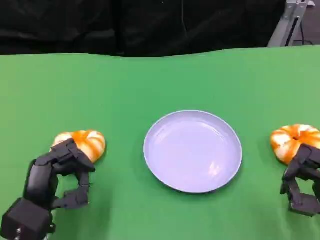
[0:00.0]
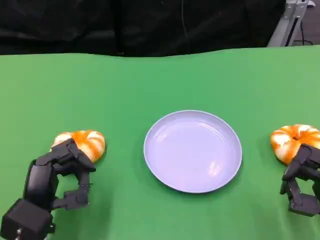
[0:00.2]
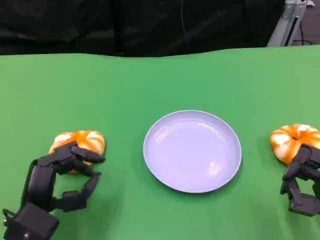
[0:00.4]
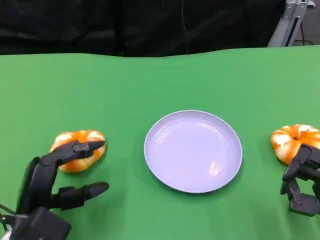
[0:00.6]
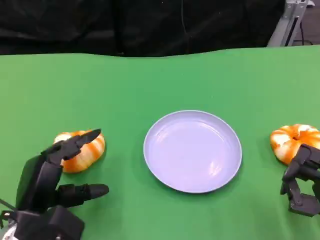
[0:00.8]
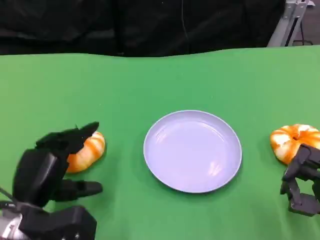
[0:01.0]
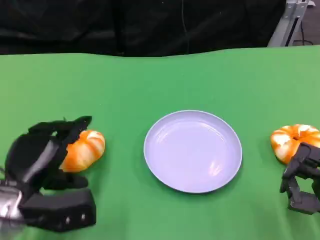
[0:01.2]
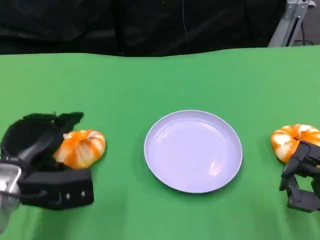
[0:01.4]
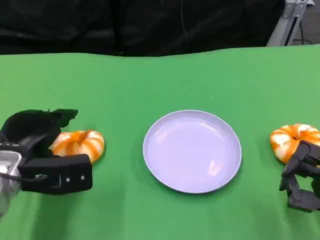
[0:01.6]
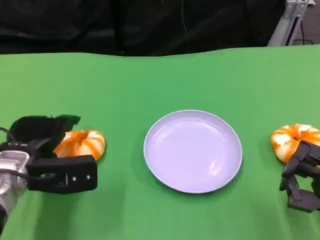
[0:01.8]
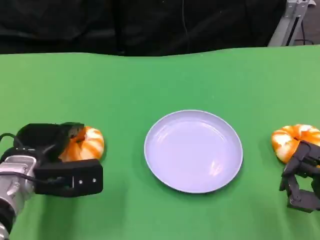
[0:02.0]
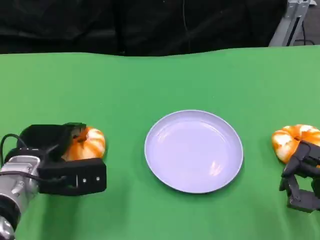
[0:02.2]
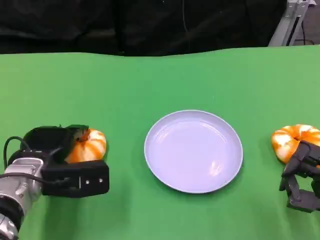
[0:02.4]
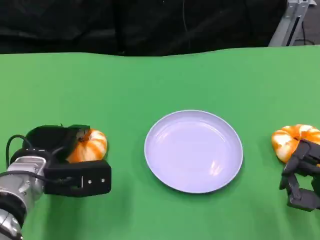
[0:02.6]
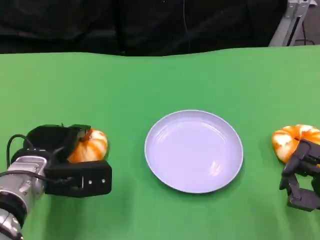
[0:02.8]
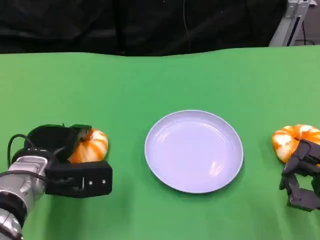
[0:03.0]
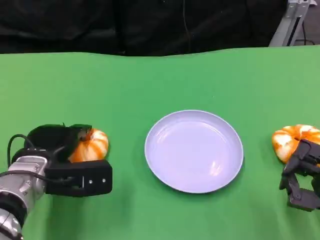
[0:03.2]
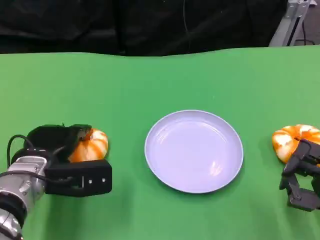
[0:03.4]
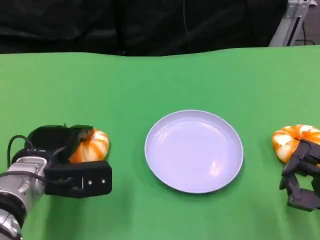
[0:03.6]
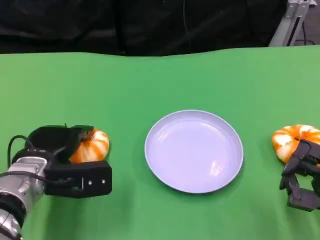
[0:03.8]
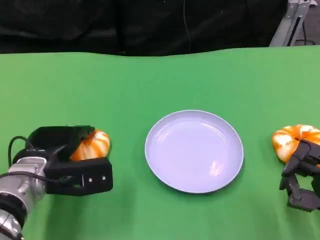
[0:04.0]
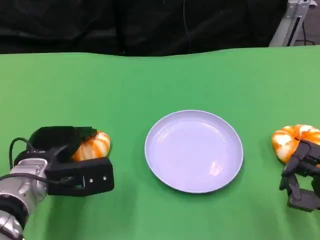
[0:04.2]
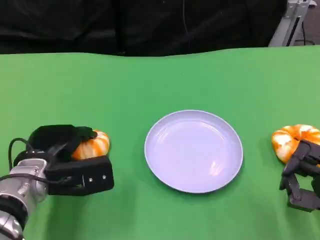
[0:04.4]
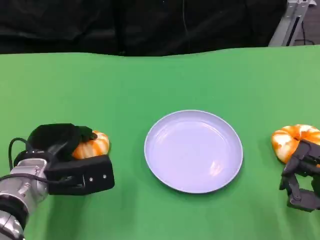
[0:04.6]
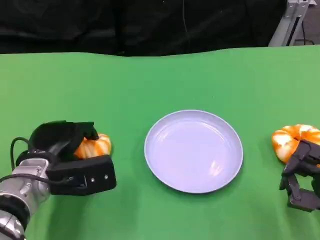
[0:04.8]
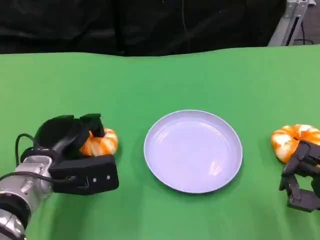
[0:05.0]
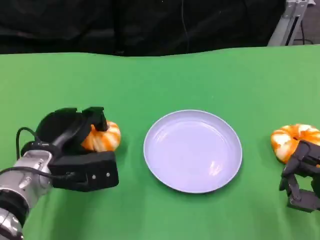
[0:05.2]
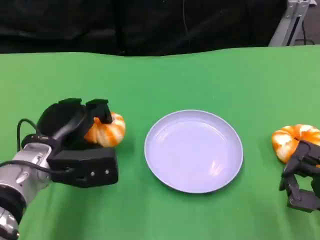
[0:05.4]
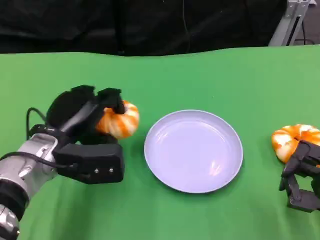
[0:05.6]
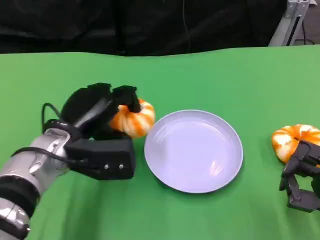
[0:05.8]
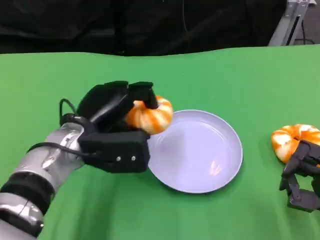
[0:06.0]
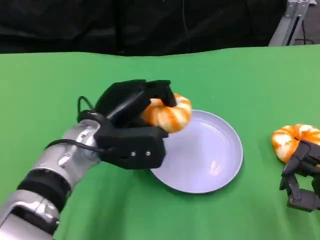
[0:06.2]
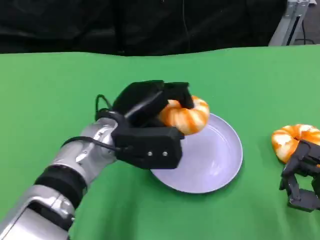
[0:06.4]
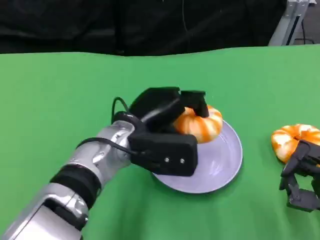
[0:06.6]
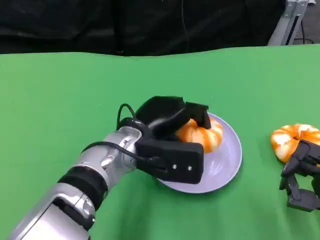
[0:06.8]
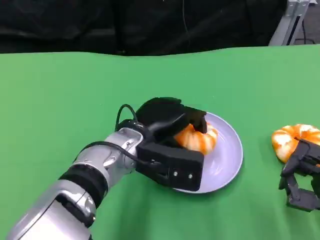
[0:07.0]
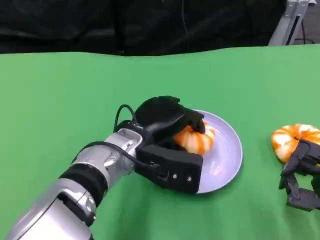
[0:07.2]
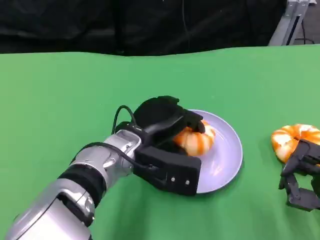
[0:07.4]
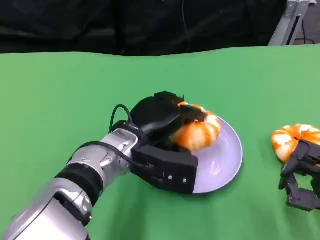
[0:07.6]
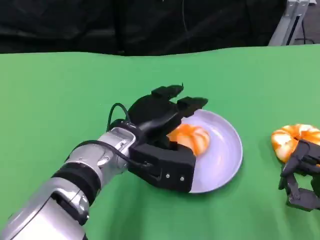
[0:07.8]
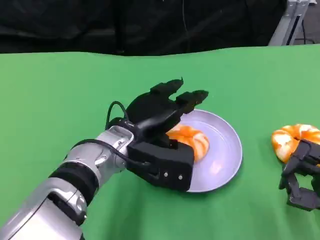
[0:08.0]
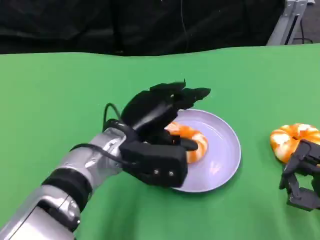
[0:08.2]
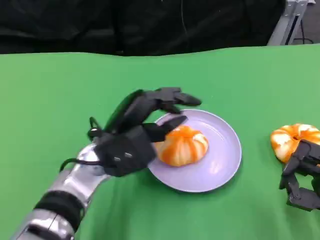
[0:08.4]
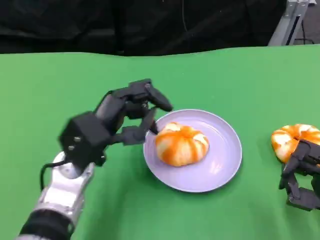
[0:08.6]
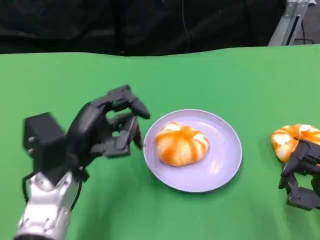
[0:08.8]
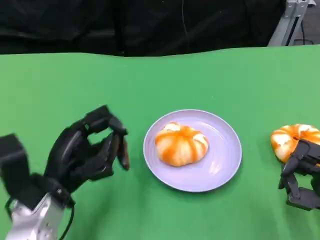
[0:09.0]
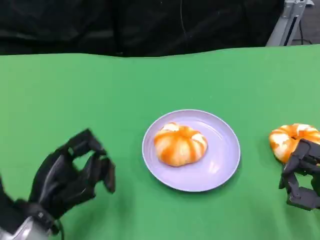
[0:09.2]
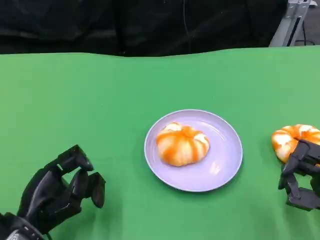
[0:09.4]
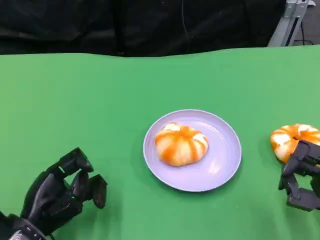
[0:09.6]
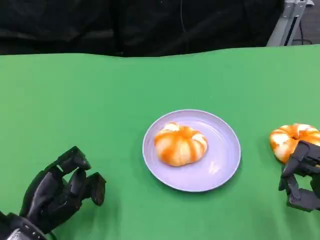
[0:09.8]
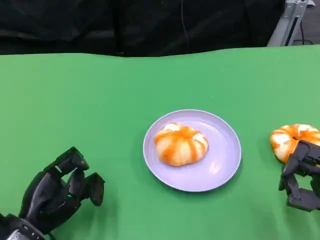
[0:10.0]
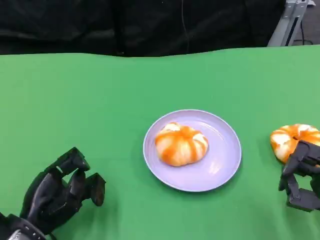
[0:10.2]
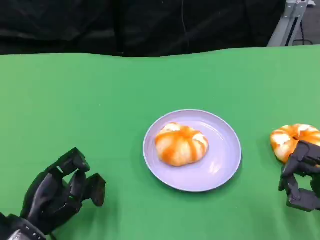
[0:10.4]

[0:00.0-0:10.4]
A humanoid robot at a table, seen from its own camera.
Task of the whole recording: Grasp the bread from the table and place it into the plate.
0:00.0 to 0:01.4: The left hand goes roughly 10 cm upward and forward.
0:01.4 to 0:04.4: There are only small adjustments of the hands.
0:04.4 to 0:06.0: The left hand is displaced to the right and upward by about 10 cm.
0:06.0 to 0:07.4: The left hand moves to the right, about 5 cm.
0:07.4 to 0:09.0: The left hand moves to the left and backward, about 15 cm.
0:09.0 to 0:10.4: The left hand moves downward, about 5 cm.

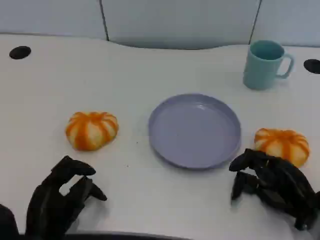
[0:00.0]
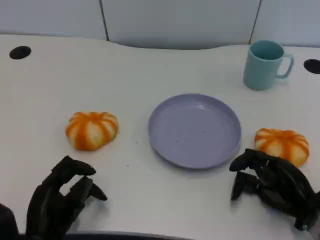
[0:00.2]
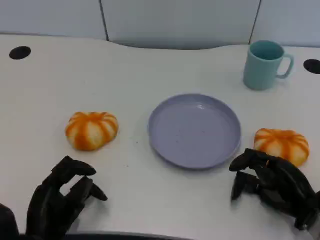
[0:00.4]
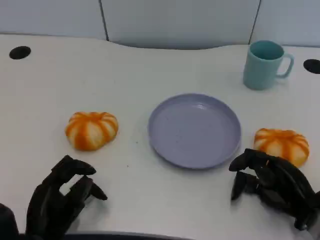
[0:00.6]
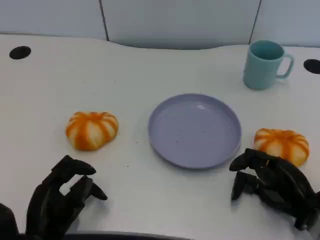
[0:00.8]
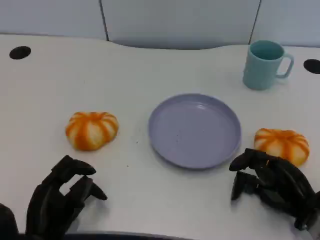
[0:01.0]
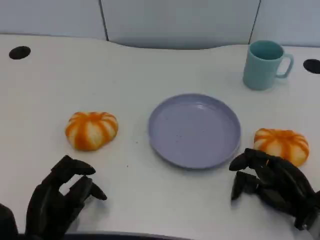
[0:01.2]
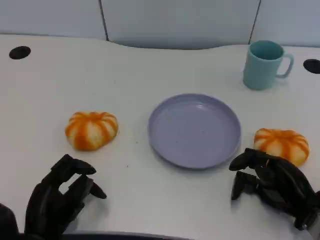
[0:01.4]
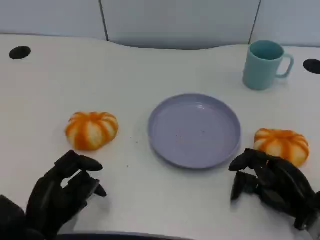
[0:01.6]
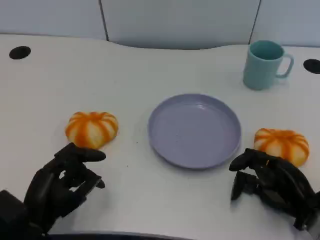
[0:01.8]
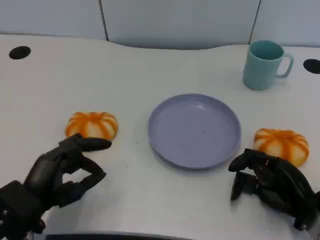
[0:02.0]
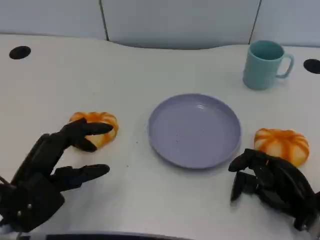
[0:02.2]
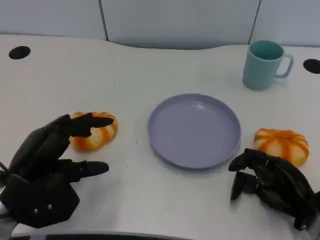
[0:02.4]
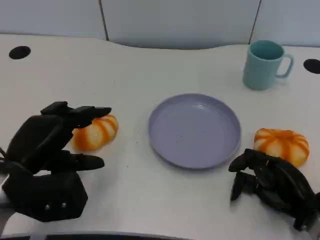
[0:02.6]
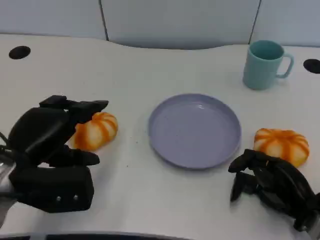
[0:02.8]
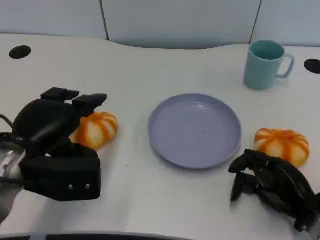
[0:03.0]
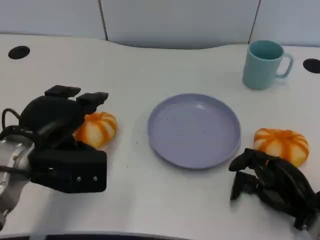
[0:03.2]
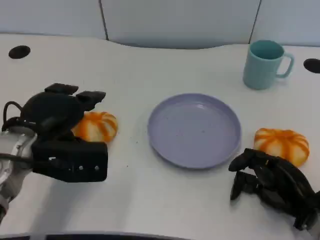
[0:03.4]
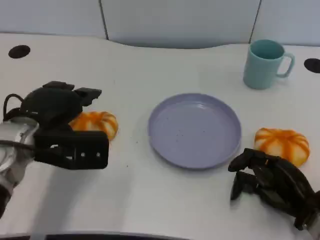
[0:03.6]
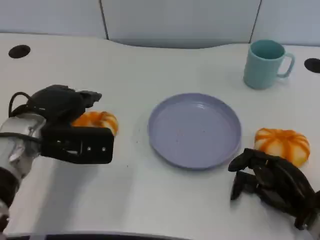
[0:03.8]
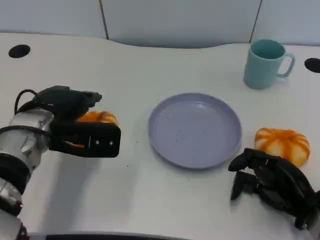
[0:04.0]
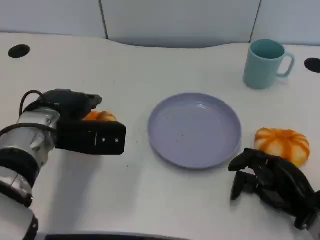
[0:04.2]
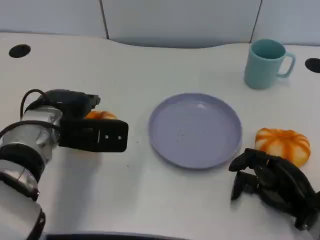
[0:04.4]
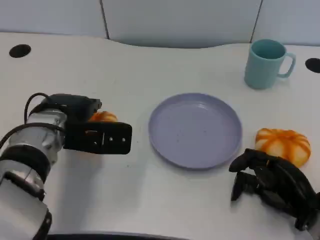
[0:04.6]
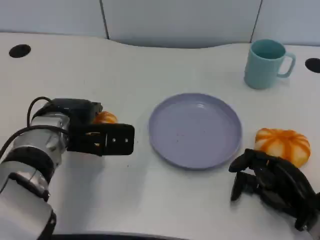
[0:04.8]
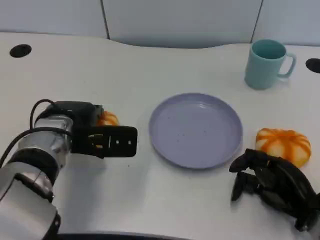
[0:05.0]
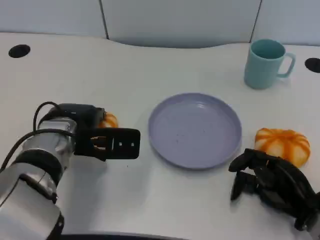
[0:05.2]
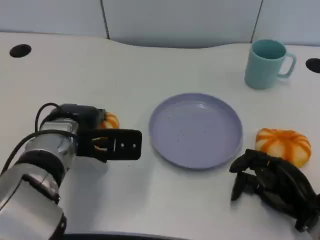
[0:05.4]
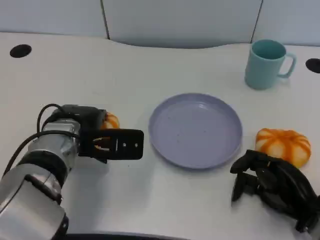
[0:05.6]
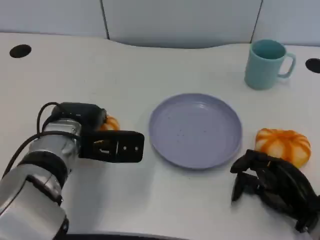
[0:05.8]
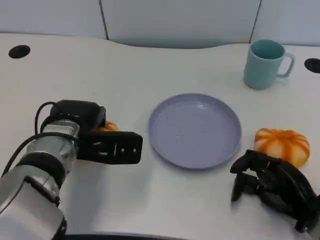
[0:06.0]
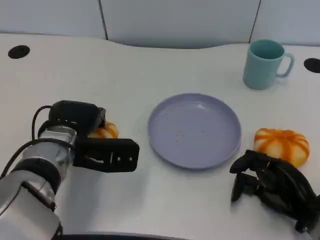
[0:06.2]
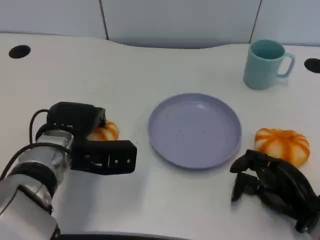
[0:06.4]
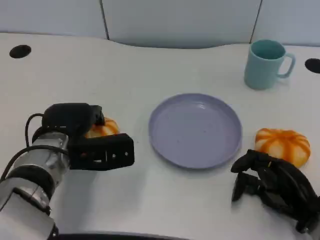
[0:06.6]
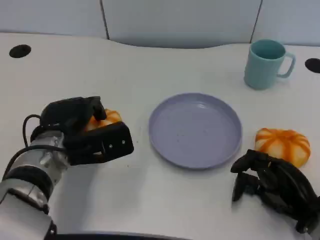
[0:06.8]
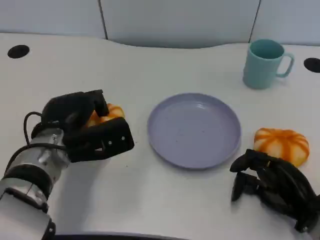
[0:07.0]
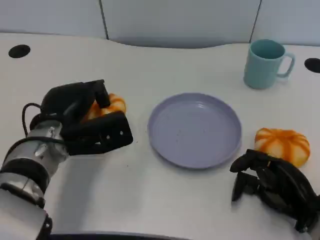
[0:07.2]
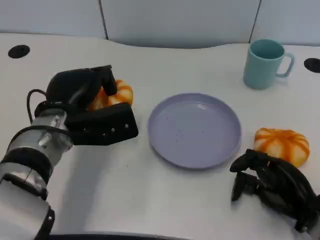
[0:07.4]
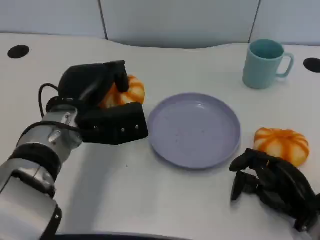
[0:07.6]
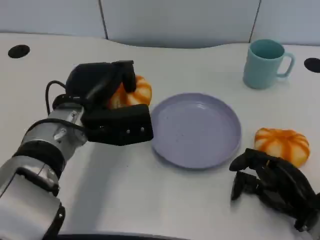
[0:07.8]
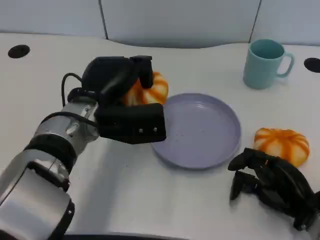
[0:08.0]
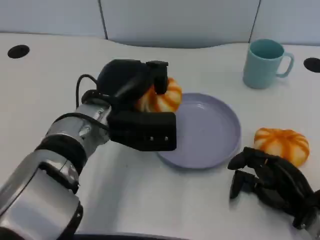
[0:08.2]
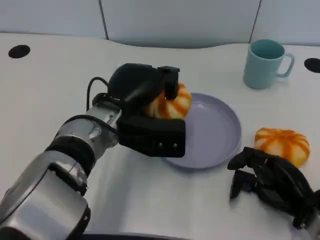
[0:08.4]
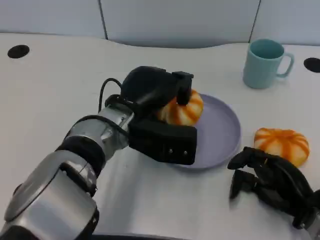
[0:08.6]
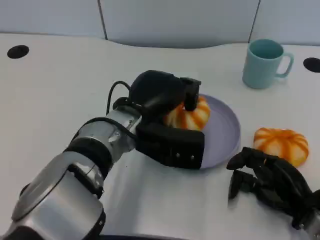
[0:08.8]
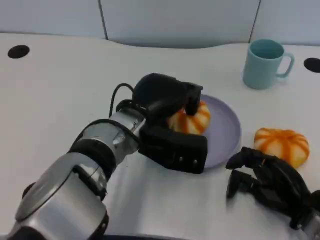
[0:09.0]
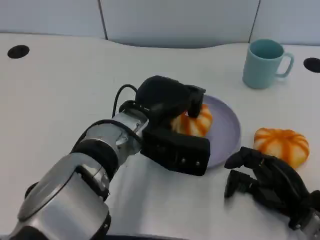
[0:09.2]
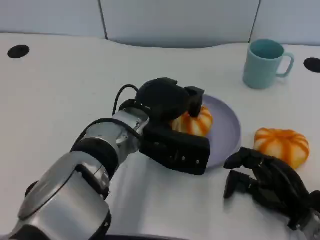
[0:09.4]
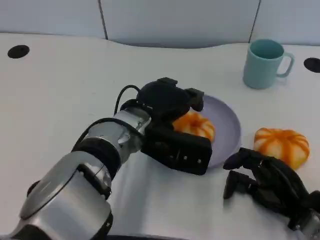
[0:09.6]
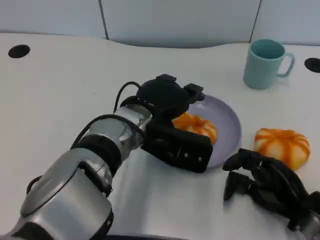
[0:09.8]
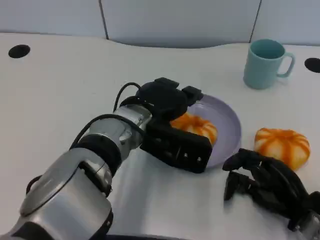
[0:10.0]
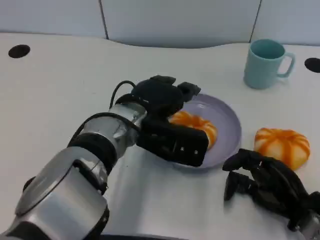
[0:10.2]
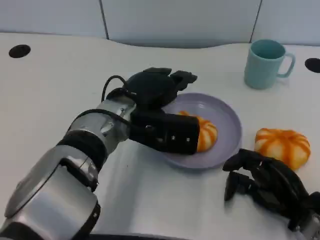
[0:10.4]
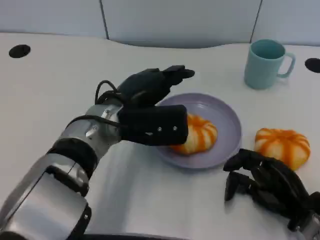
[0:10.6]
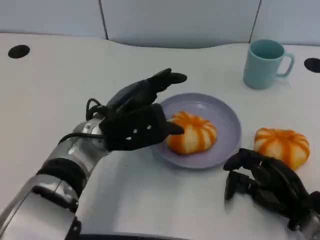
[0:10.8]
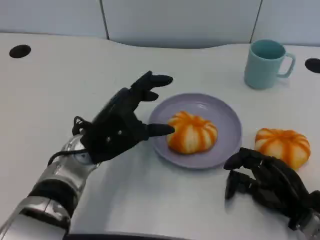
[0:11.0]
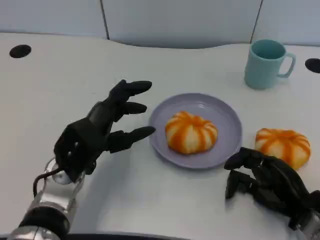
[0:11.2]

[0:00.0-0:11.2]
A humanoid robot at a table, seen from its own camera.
Task of the whole recording: Grasp the bread from the table and place it into the plate.
0:00.0 to 0:01.6: The hands move only a little.
0:01.6 to 0:03.2: The left hand heads upward and forward, covering approximately 15 cm.
0:03.2 to 0:04.8: The left hand heads forward, covering approximately 5 cm.
0:04.8 to 0:06.4: The hands stay close to where they were, moving slightly.
0:06.4 to 0:08.0: The left hand moves to the right and upward, approximately 5 cm.
0:08.0 to 0:09.6: The left hand travels to the right by approximately 5 cm.
0:09.6 to 0:11.2: The left hand travels to the left by about 10 cm.

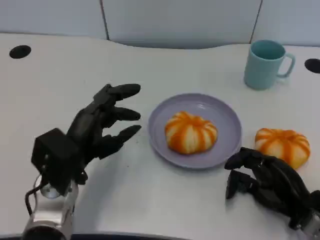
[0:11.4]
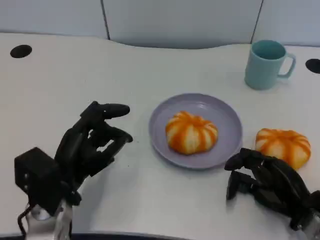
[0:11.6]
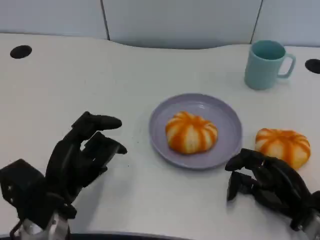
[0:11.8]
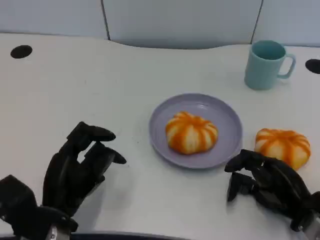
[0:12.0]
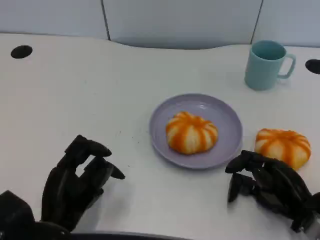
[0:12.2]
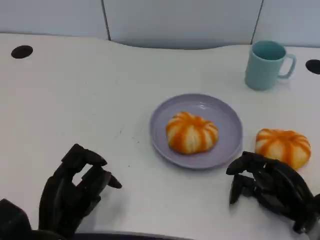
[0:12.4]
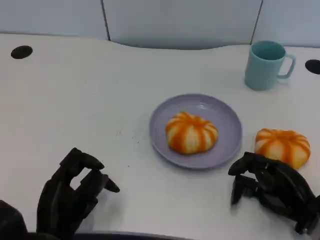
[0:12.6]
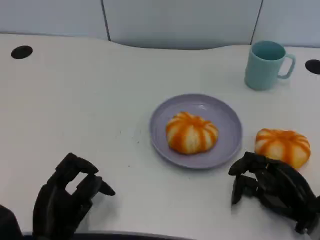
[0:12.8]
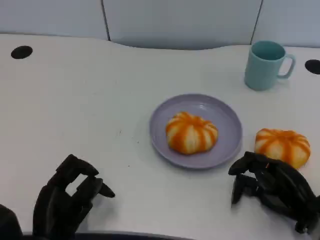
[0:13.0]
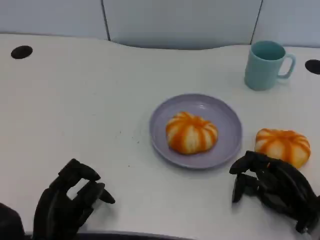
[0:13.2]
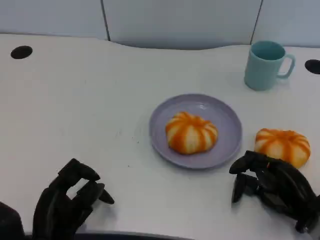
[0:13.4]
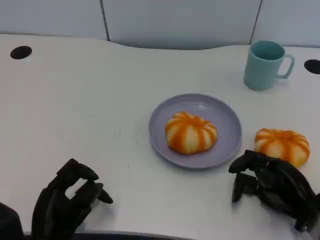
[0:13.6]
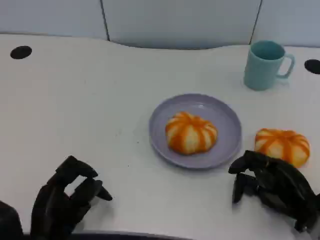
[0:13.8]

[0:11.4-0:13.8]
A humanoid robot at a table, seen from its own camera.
Task of the whole recording: Grasp the bread from the table and place it into the plate.
0:11.4 to 0:12.6: The left hand heads backward, covering roughly 10 cm.
0:12.6 to 0:13.8: The hands stay close to where they were, moving slightly.
